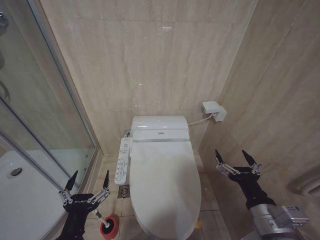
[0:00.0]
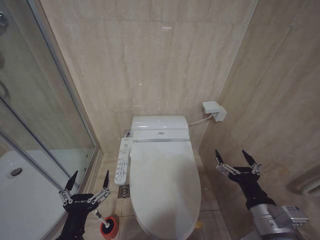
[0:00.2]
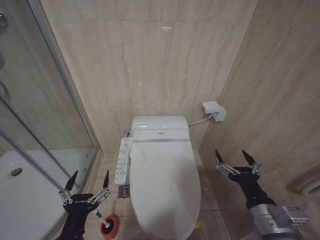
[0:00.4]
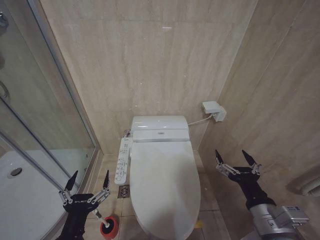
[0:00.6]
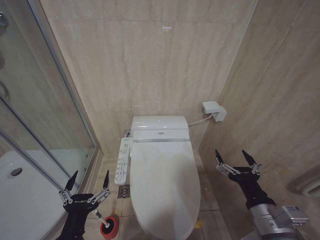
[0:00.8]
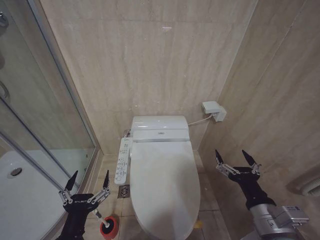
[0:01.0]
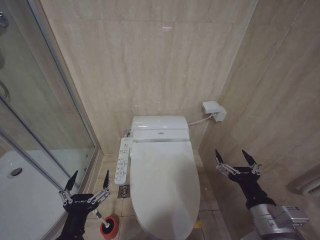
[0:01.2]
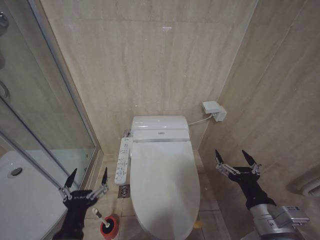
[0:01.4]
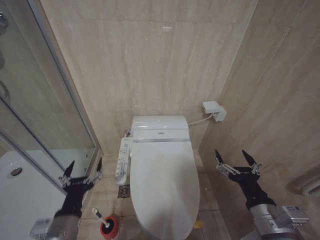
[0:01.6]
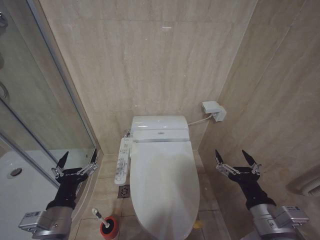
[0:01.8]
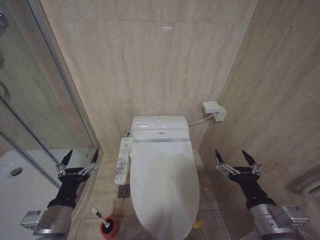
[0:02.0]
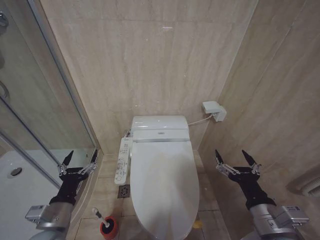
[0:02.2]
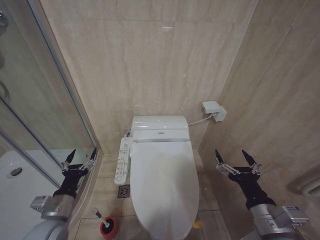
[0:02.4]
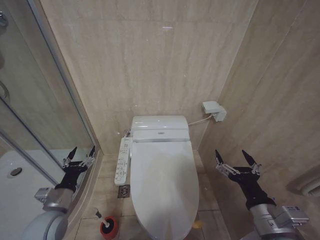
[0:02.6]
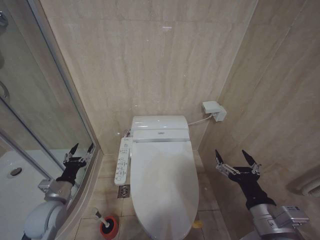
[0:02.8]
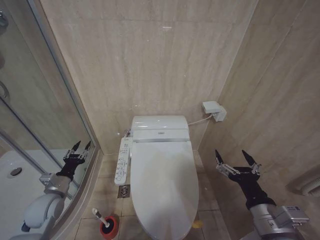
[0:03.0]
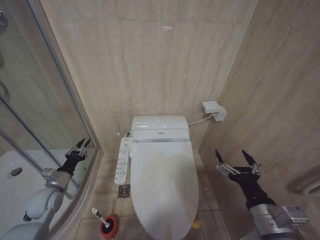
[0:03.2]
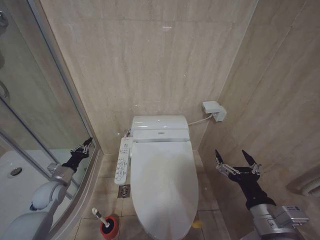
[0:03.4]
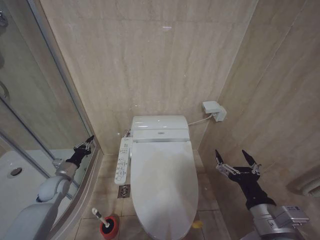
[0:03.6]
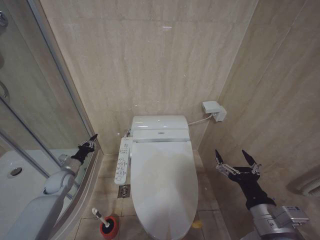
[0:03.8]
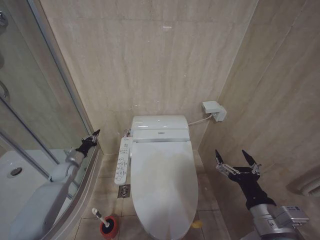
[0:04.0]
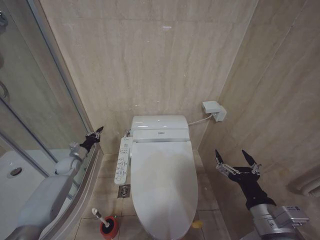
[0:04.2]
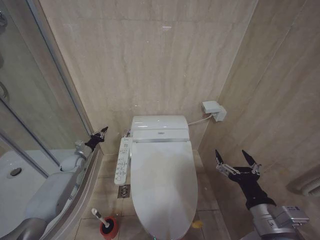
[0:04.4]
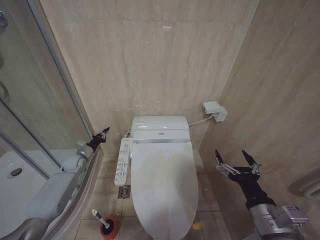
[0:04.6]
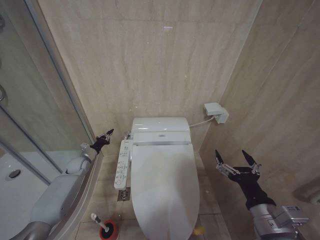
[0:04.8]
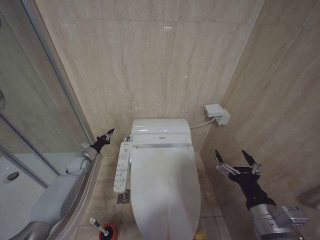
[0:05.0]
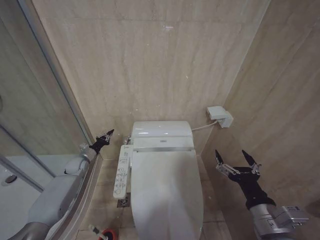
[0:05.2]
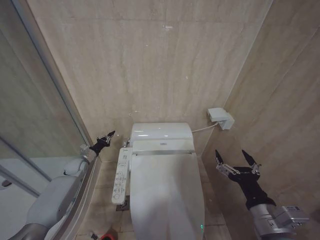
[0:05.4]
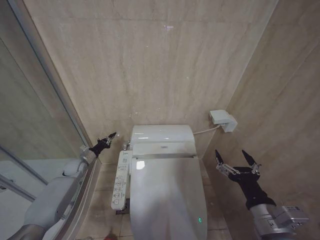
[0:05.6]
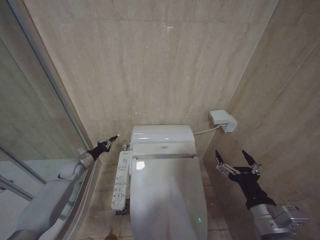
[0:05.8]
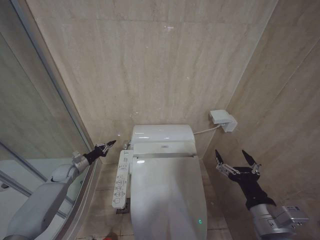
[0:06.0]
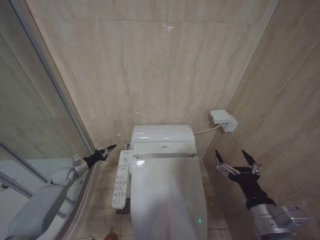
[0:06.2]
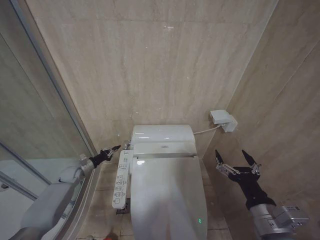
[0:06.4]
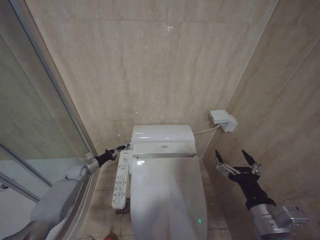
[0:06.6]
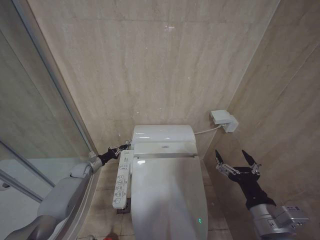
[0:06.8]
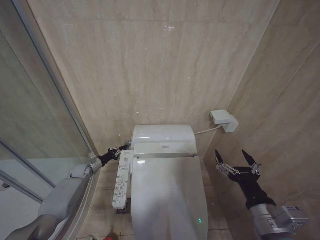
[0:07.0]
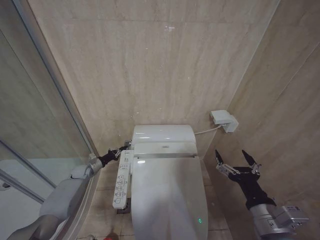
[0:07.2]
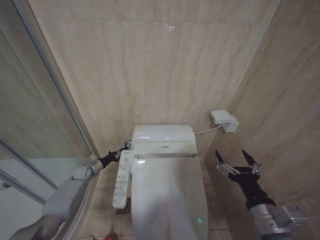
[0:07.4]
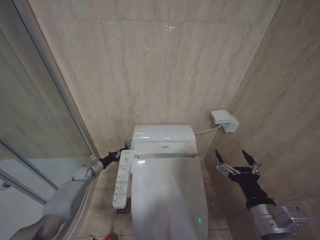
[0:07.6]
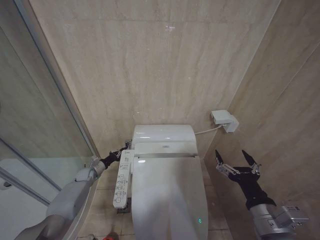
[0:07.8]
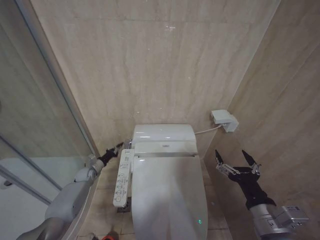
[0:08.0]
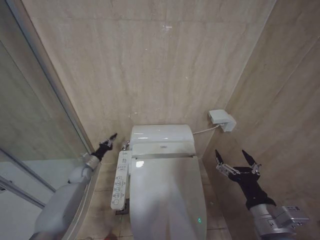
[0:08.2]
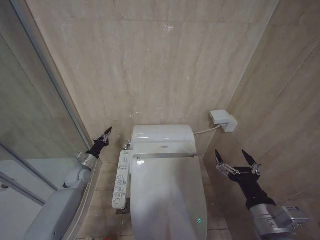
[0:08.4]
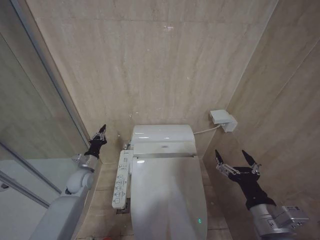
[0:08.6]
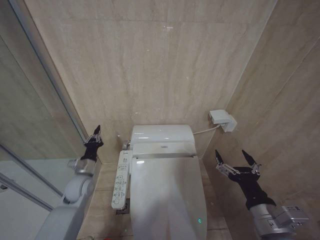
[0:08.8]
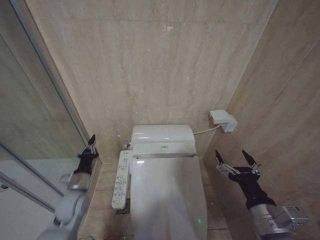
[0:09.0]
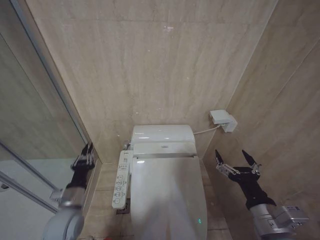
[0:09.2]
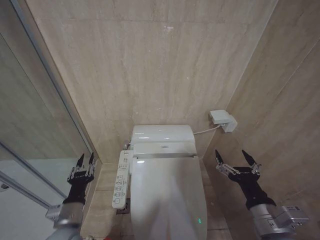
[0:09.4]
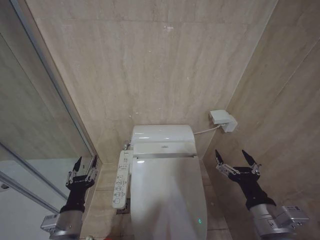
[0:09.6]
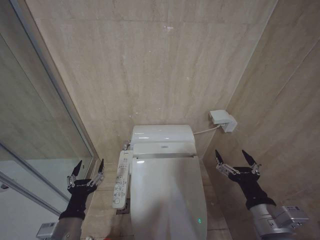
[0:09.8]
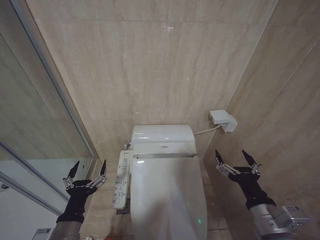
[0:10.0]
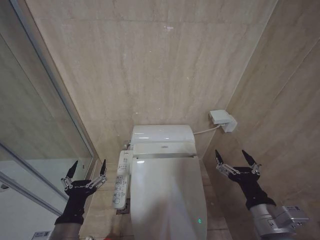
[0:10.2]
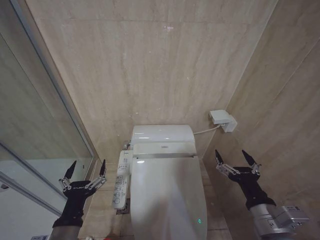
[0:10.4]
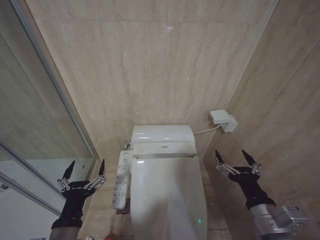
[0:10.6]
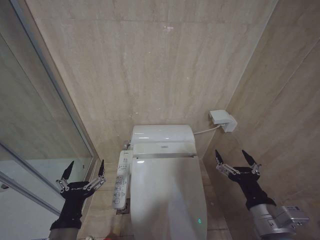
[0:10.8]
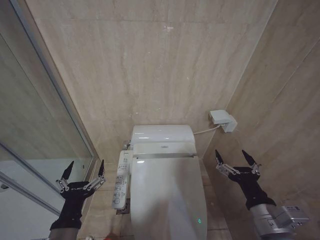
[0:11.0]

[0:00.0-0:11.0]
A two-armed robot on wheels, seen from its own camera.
Task of the whole recording: Open the toilet lid, clean the toilet bowl with a toilet brush, close the toilet lid, and flush.
0:00.0 to 0:01.6: The grippers make only small movements.
0:01.6 to 0:03.2: The left gripper moves forward and to the left, roughly 25 cm.
0:03.2 to 0:04.8: The left gripper shifts some 20 cm forward, and closes up.
0:04.8 to 0:06.2: The left gripper changes place by about 5 cm.
0:06.2 to 0:07.8: The left gripper goes some 10 cm downward and to the right.
0:07.8 to 0:09.4: The left gripper goes approximately 35 cm backward and upward.
0:09.4 to 0:11.0: The left gripper is displaced backward and upward by approximately 10 cm, and opens up.

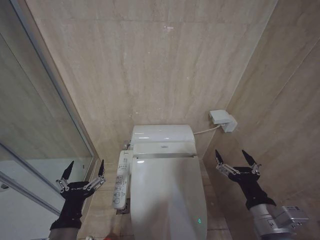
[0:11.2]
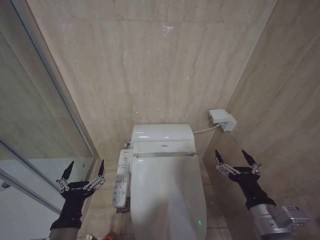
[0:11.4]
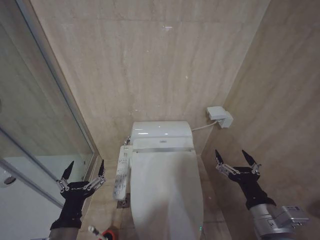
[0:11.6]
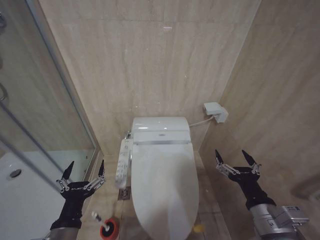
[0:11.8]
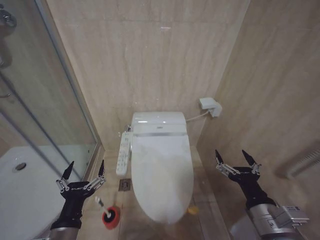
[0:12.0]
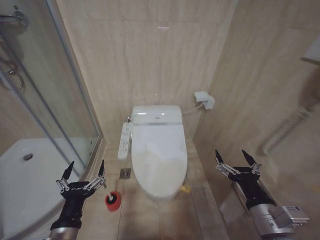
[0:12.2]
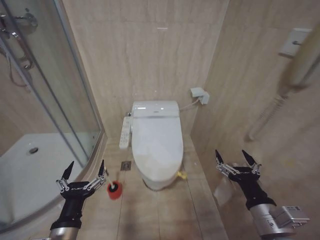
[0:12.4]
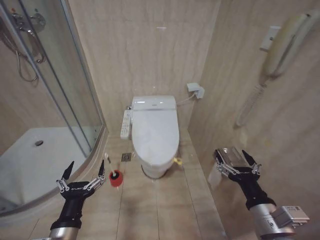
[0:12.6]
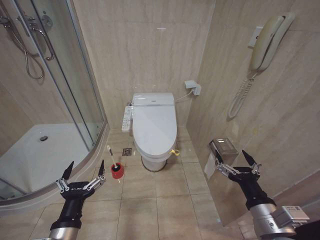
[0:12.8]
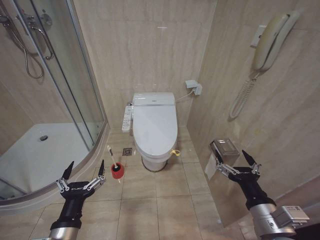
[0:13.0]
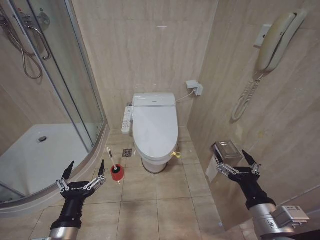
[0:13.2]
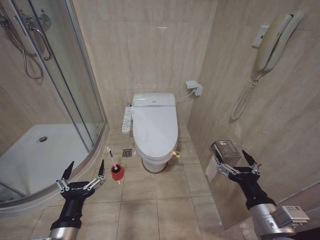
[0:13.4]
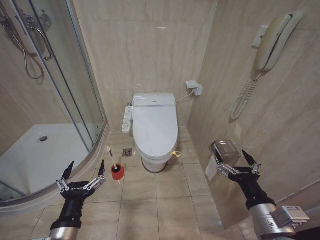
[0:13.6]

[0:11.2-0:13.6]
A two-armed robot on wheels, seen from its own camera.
Task of the whole recording: Open the toilet lid, clean the toilet bowl with a toilet brush, close the toilet lid, and flush.
0:12.4 to 0:13.6: Both grippers stay about where they are.

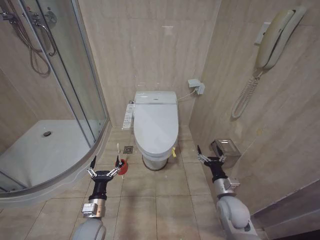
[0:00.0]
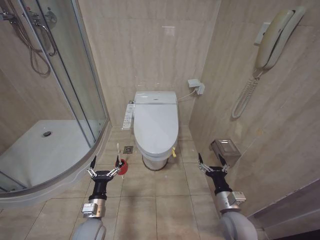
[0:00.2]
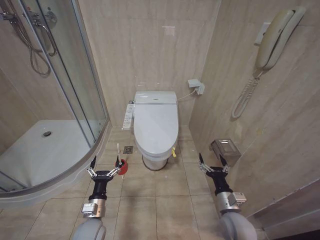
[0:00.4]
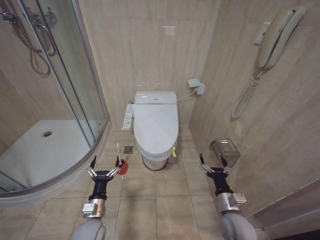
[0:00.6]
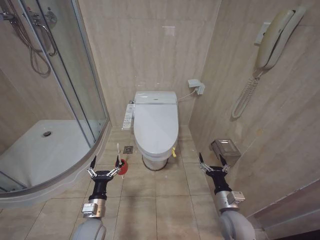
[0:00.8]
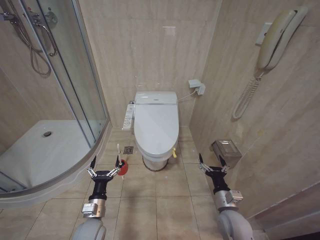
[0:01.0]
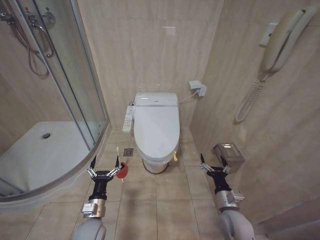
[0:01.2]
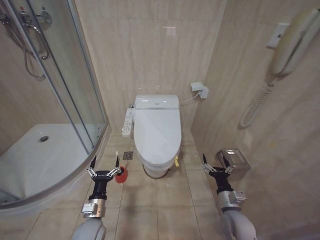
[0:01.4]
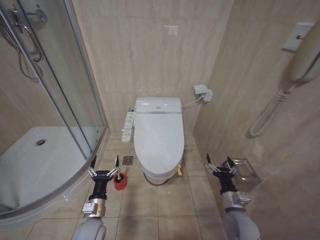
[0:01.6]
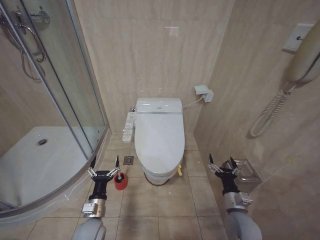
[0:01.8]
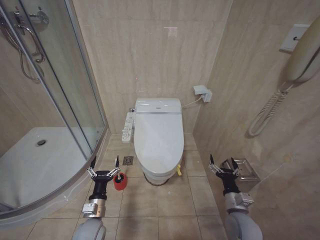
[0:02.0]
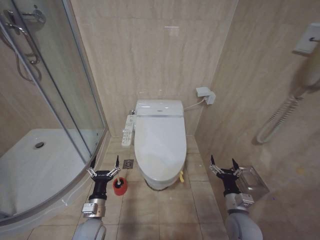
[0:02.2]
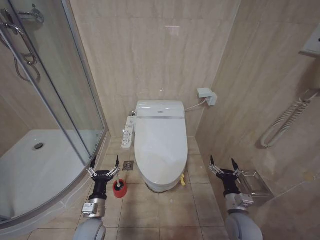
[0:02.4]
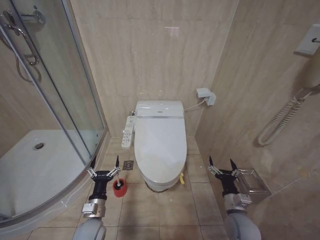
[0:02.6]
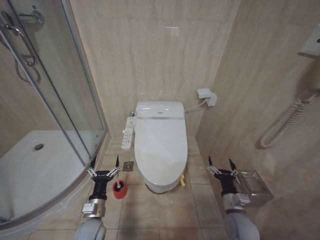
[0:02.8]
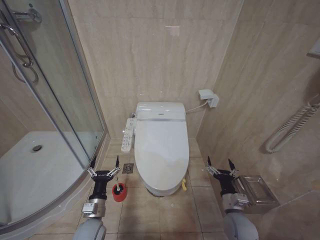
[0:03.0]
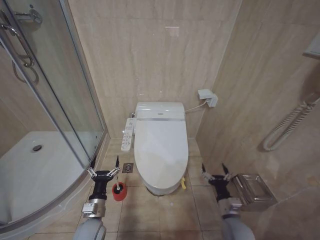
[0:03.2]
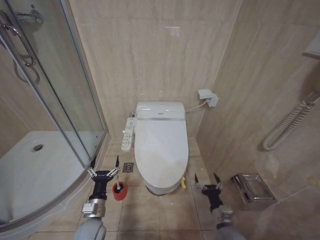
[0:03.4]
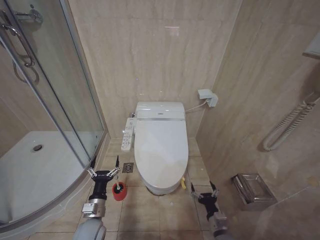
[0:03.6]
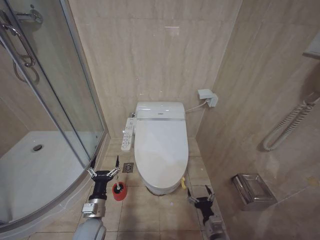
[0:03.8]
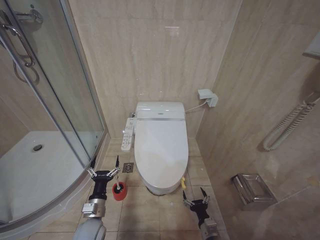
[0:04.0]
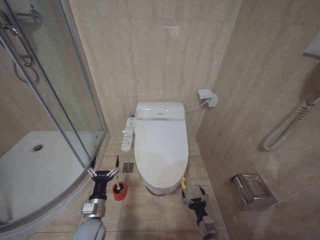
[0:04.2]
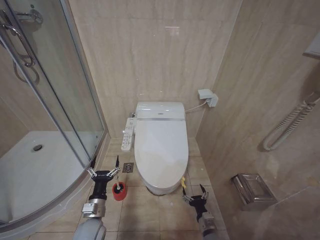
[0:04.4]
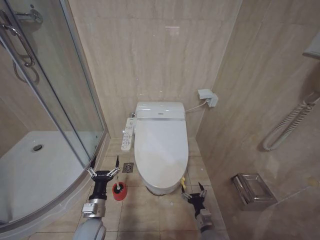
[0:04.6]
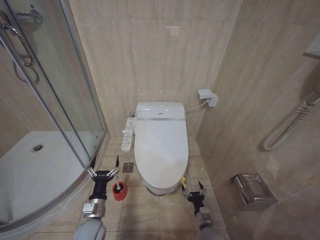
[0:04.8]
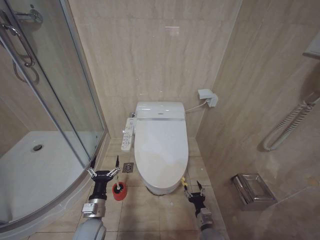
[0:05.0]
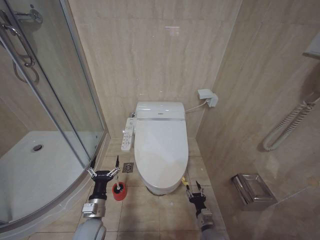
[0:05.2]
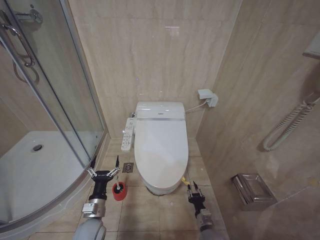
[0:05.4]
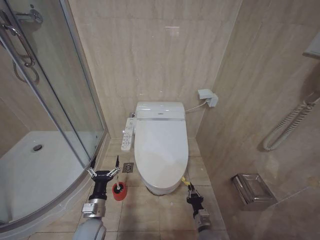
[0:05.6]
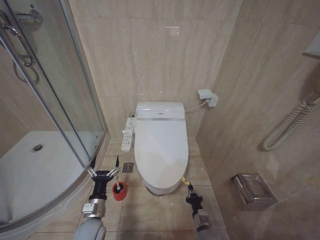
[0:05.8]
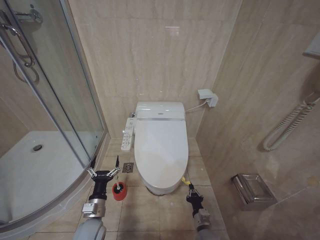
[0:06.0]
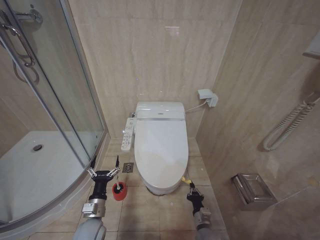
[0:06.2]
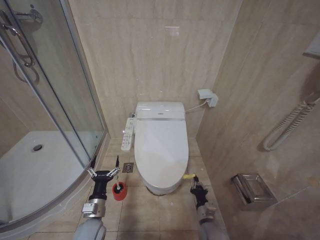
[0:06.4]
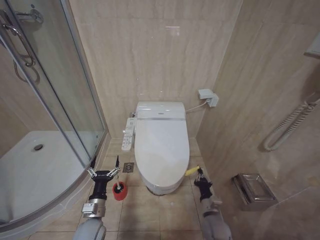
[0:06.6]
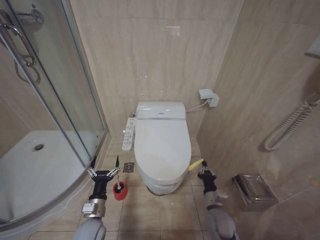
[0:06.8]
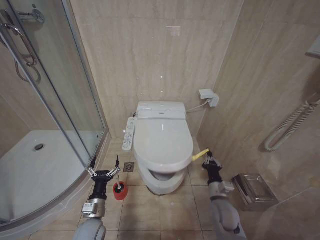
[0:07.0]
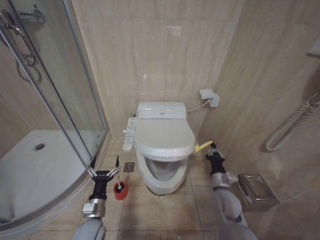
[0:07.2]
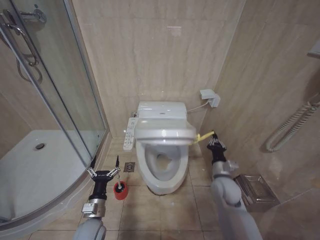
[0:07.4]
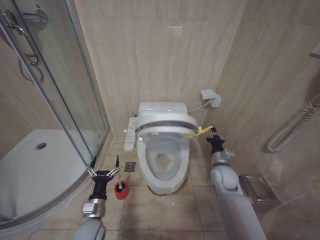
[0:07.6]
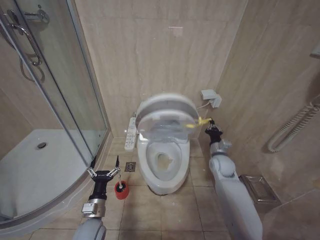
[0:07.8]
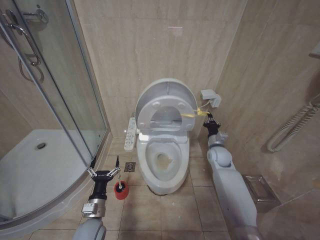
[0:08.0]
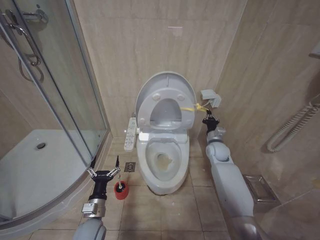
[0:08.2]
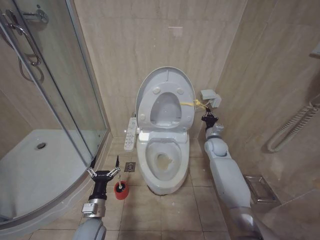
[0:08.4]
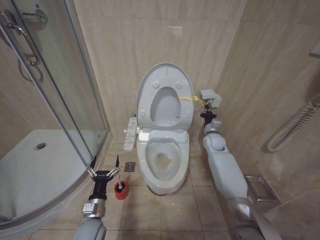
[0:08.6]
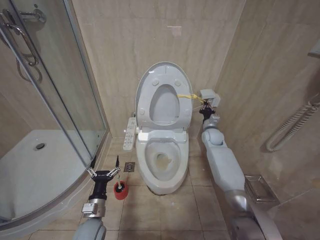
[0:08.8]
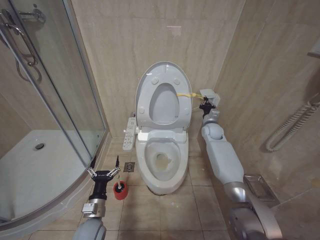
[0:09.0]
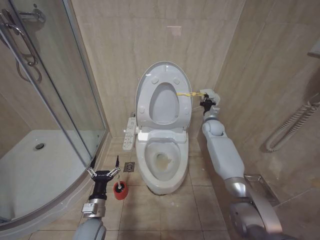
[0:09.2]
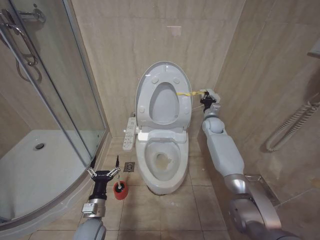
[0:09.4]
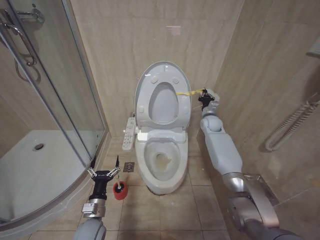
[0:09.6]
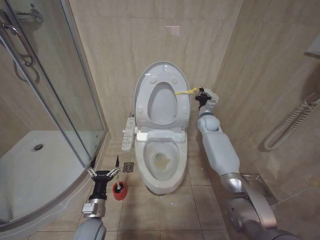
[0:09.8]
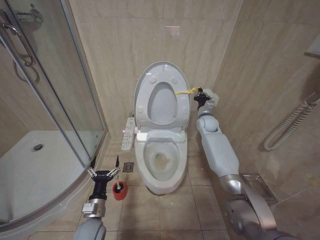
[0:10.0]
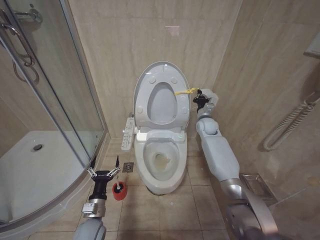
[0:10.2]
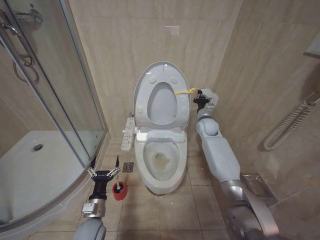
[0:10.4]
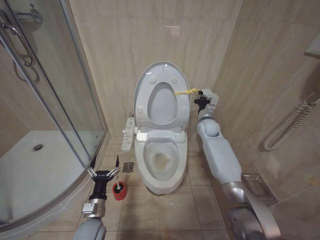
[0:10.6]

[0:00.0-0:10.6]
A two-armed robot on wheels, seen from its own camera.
Task of the whole recording: Open the toilet lid, clean the toilet bowl with a toilet brush, close the toilet lid, and flush.
0:01.6 to 0:03.0: There are only small adjustments of the grippers.
0:03.0 to 0:04.6: The right gripper heads downward and to the left, covering about 15 cm.
0:06.0 to 0:07.6: The right gripper moves upward and forward, some 25 cm.
0:07.6 to 0:09.0: The right gripper shifts approximately 20 cm forward and upward.
0:09.0 to 0:10.6: The right gripper moves some 5 cm.
